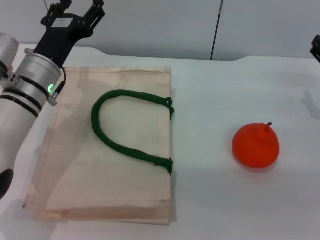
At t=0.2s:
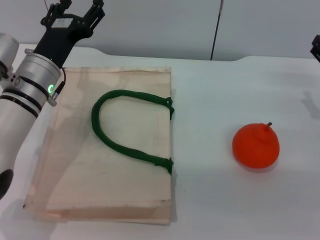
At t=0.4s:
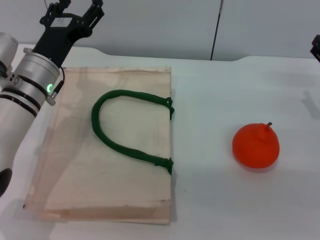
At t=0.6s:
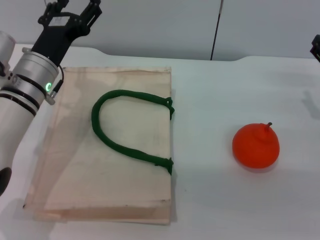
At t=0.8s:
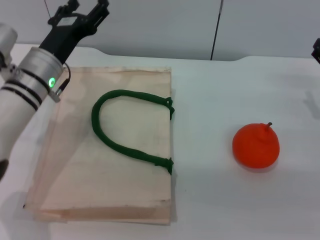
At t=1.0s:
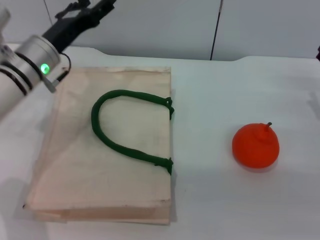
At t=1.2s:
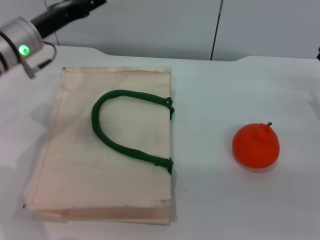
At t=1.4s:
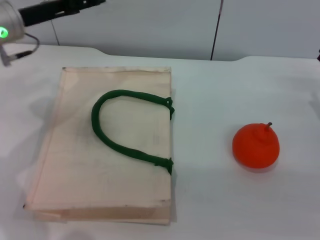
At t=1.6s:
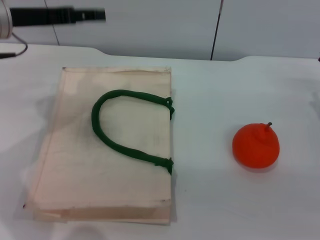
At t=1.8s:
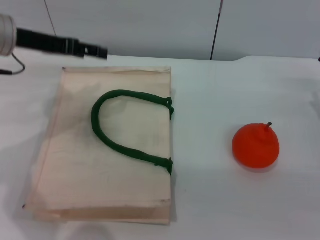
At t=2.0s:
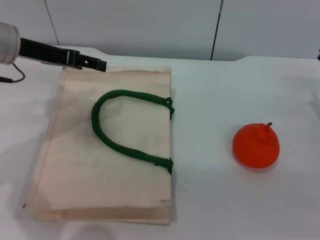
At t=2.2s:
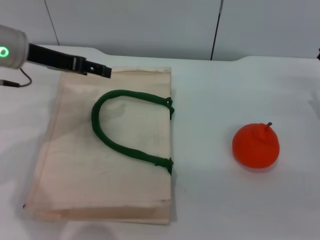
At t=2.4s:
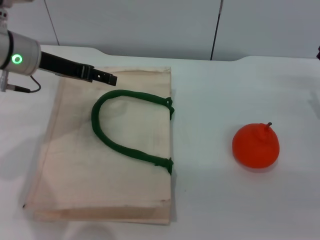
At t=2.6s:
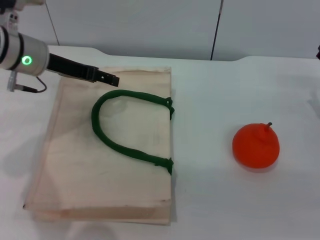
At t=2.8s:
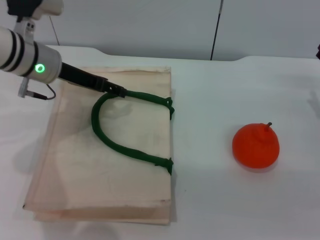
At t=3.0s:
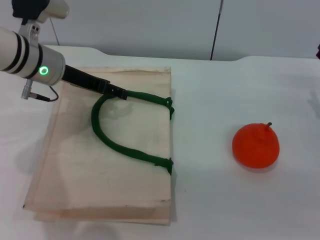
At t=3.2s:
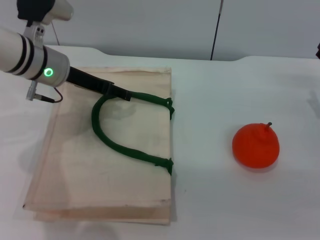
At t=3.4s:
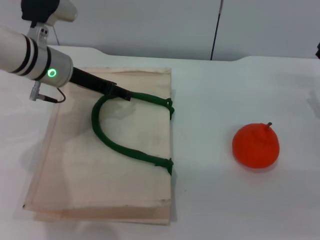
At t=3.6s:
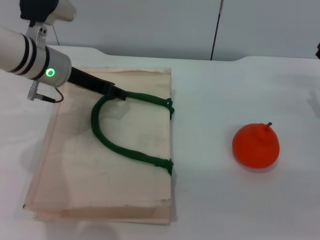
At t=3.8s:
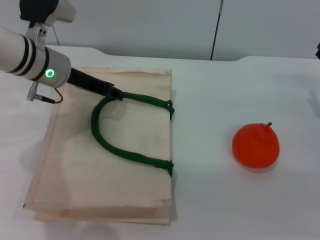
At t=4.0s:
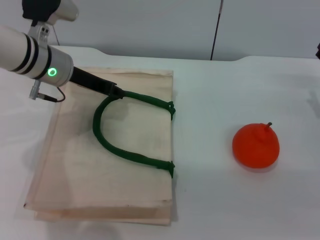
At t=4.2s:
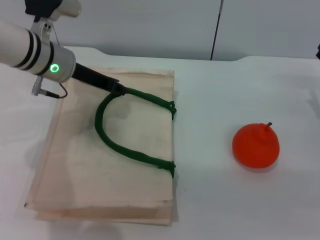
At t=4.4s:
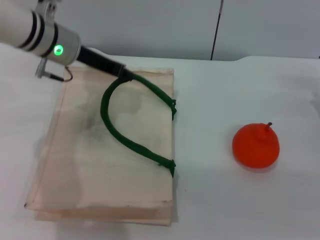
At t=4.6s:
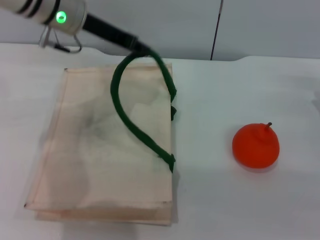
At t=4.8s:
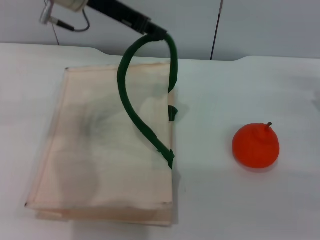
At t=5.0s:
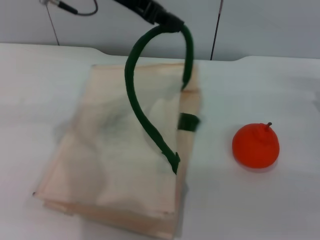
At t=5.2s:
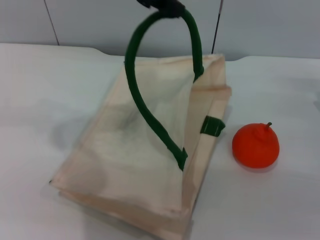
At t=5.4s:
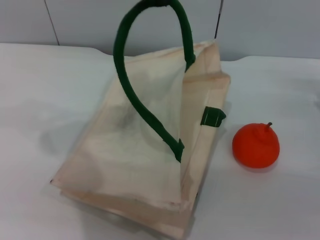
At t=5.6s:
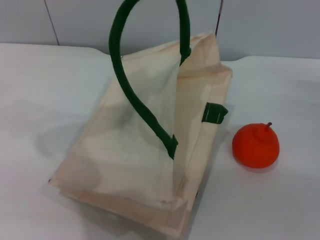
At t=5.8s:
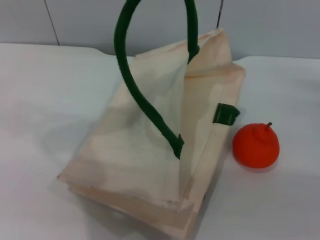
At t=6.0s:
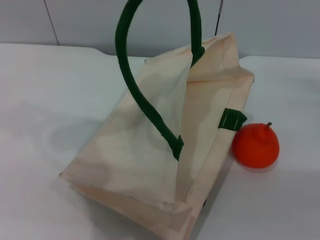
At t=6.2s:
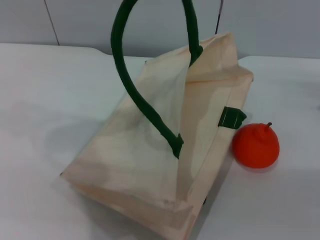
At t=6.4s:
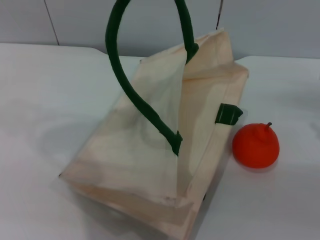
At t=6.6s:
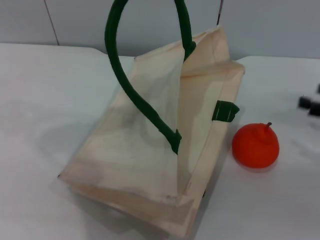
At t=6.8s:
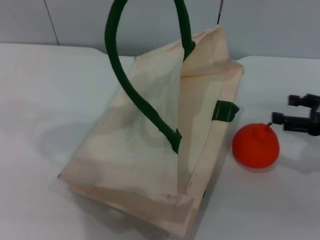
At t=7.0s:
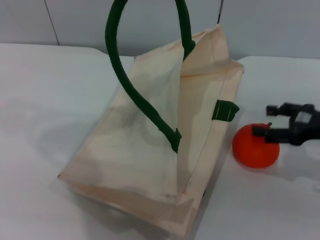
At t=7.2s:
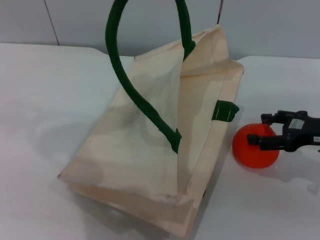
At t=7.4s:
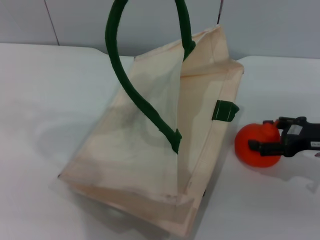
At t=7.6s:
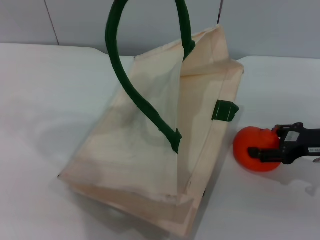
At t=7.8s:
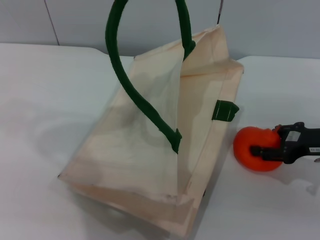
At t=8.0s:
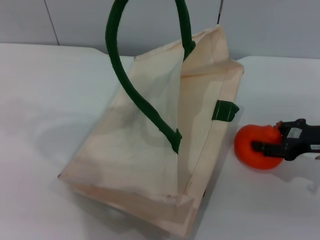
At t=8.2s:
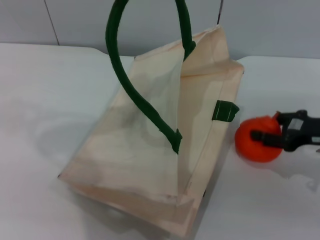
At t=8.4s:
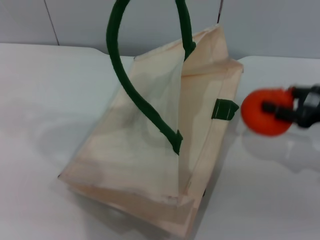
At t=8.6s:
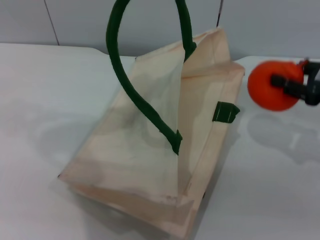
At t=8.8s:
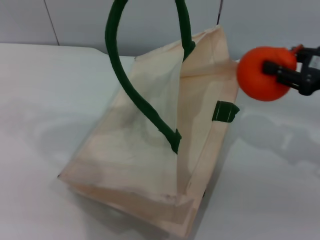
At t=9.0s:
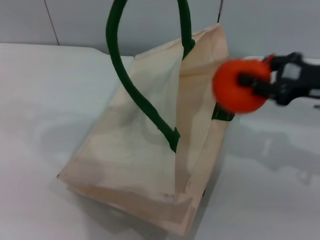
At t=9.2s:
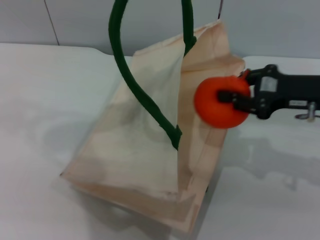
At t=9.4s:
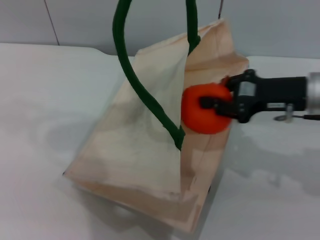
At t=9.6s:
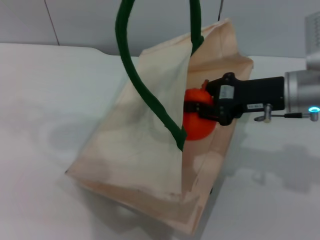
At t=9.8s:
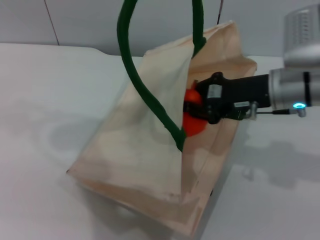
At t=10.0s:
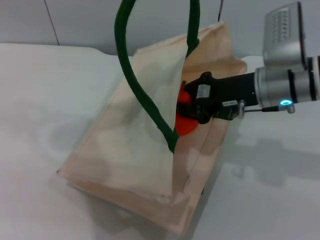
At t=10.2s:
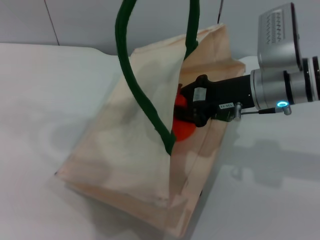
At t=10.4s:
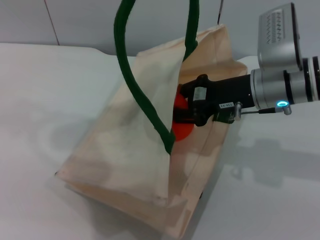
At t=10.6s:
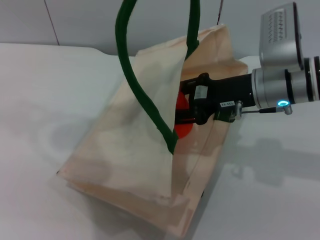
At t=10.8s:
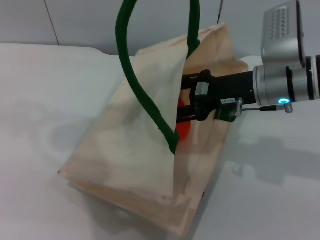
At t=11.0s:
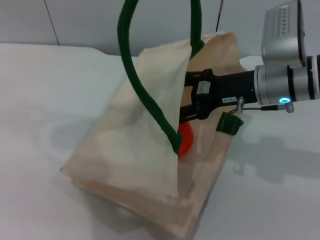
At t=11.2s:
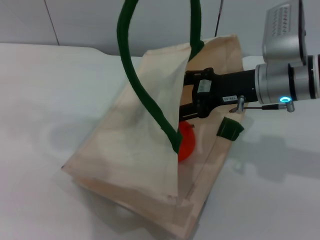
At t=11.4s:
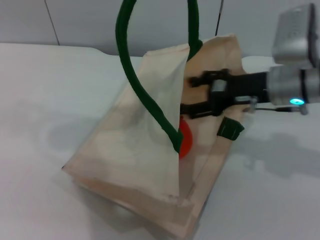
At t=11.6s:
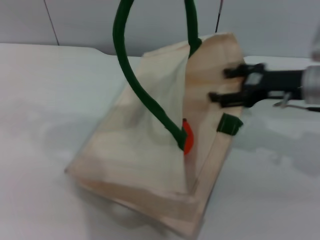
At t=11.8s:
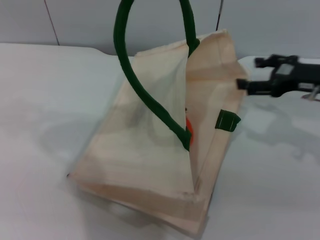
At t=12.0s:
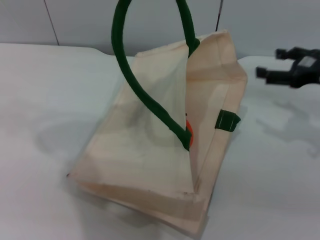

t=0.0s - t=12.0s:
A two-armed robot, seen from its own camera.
Task of the whole recording: pick up the orange from the table and place it in the white handbag.
Step, t=0.0s - t=5.4s: Lift the woven bag with the left gripper to open it.
Step, t=5.6s - t=8.2s: Pick up the orange with the right gripper.
Step, t=8.4s - t=11.4s: Place the orange into the woven bag with the right gripper.
t=0.0s - t=1.6s: The left gripper goes roughly 15 cm upward and to the left.
t=1.6s - t=3.0s: The left gripper moves downward and to the right, some 10 cm.
t=3.0s - t=4.4s: The left gripper closes its fingers.
t=4.4s - t=6.0s: The left gripper heads upward, covering roughly 20 cm.
t=6.0s - t=7.6s: The right gripper travels to the left by roughly 5 cm.
t=7.6s - t=9.0s: The right gripper shifts about 5 cm upward, and closes its fingers.
t=9.0s - t=10.4s: The right gripper shifts approximately 10 cm to the left.
t=10.4s - t=12.0s: The right gripper shifts approximately 15 cm to the right, and opens its fingers.

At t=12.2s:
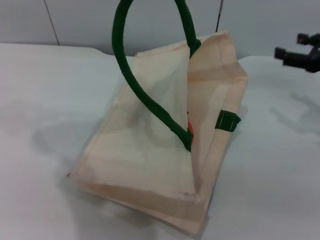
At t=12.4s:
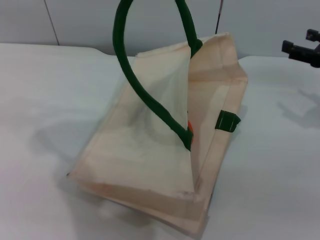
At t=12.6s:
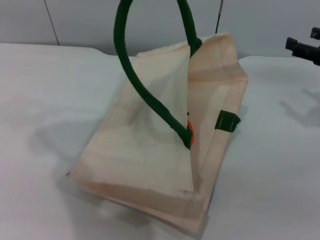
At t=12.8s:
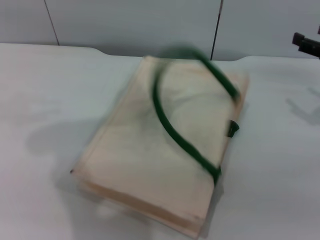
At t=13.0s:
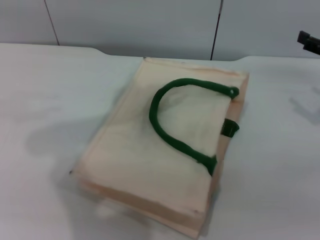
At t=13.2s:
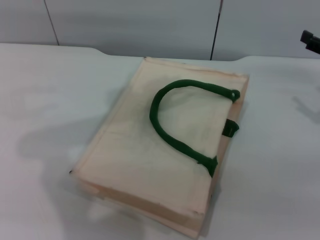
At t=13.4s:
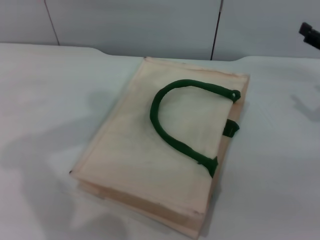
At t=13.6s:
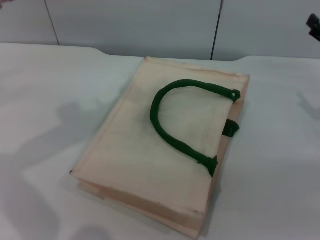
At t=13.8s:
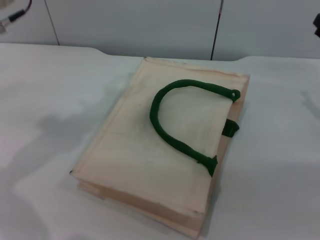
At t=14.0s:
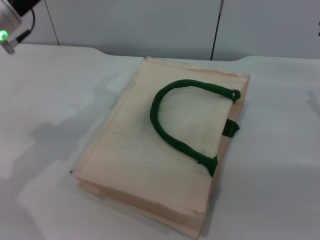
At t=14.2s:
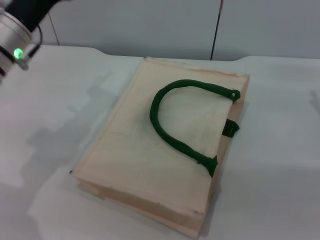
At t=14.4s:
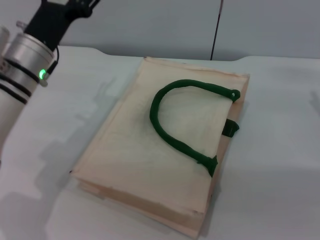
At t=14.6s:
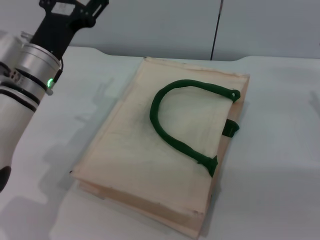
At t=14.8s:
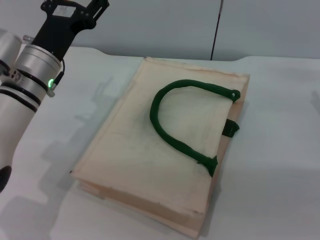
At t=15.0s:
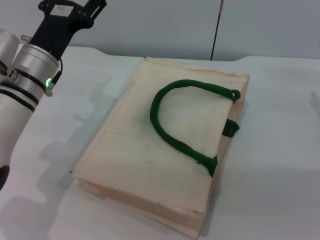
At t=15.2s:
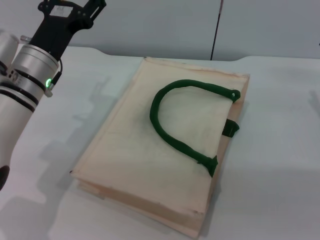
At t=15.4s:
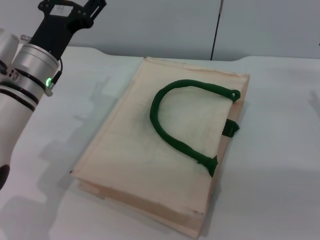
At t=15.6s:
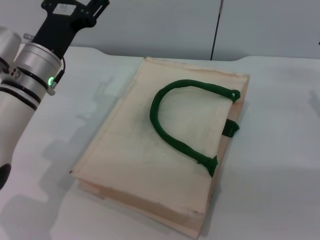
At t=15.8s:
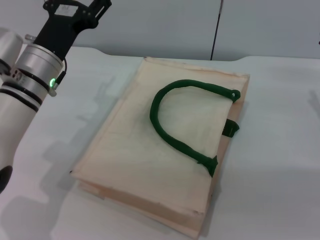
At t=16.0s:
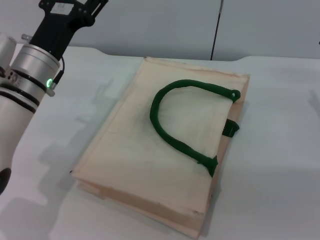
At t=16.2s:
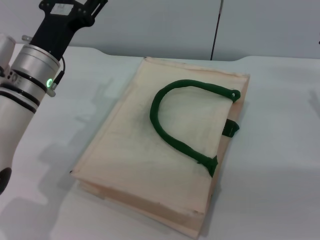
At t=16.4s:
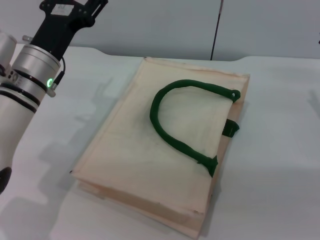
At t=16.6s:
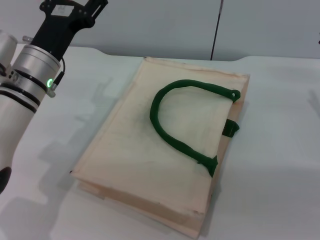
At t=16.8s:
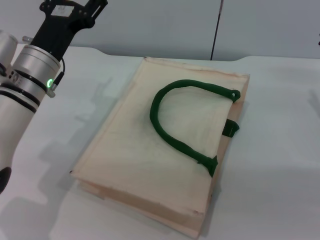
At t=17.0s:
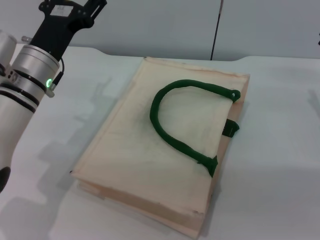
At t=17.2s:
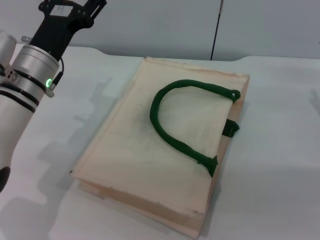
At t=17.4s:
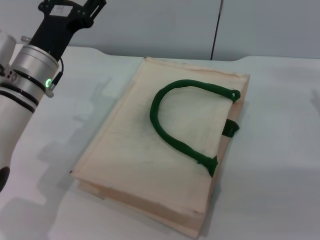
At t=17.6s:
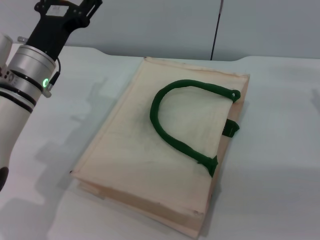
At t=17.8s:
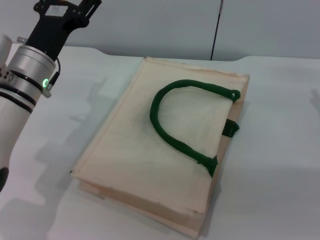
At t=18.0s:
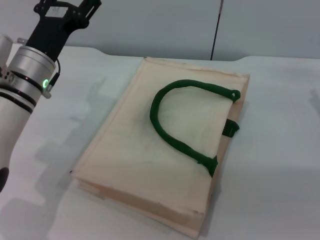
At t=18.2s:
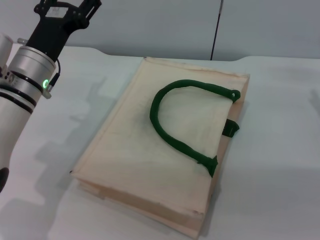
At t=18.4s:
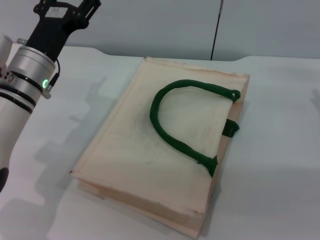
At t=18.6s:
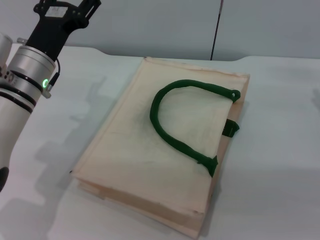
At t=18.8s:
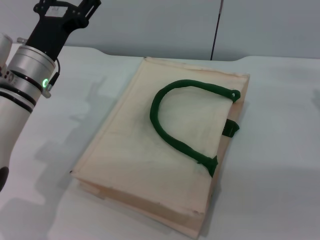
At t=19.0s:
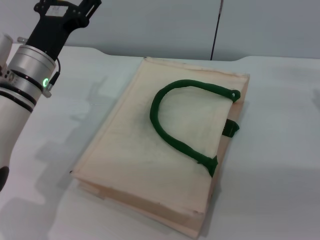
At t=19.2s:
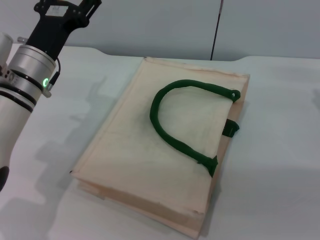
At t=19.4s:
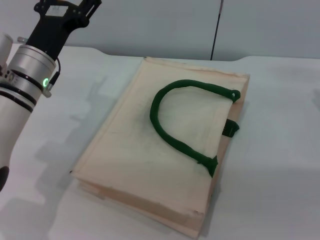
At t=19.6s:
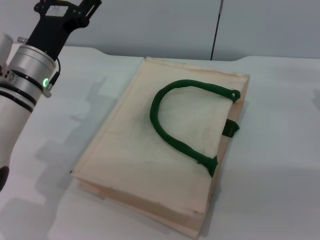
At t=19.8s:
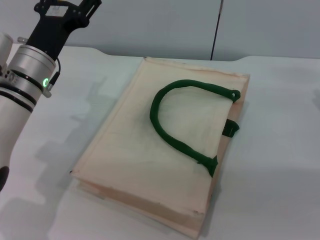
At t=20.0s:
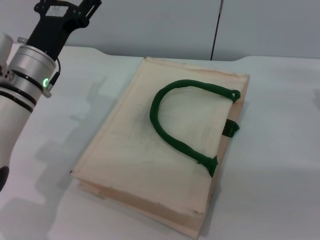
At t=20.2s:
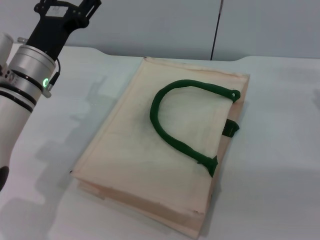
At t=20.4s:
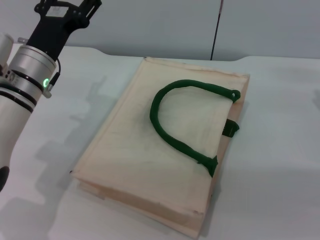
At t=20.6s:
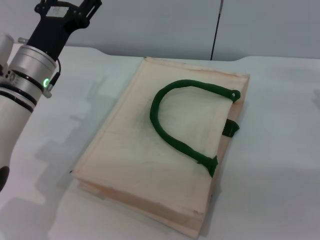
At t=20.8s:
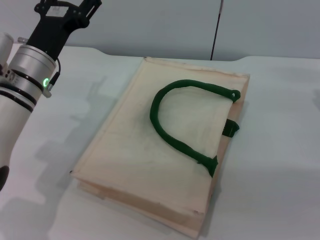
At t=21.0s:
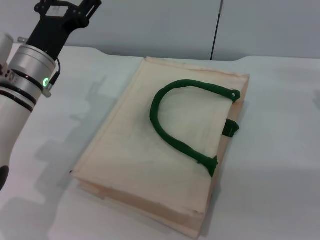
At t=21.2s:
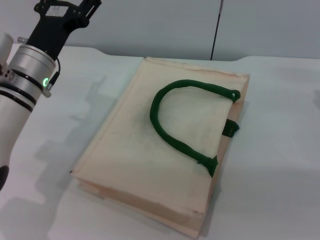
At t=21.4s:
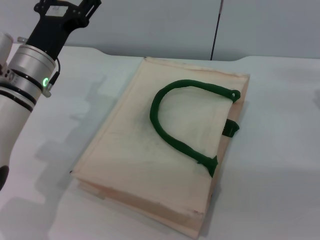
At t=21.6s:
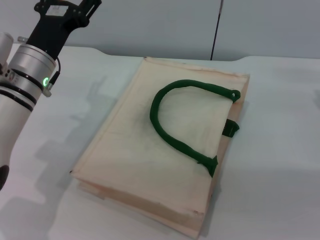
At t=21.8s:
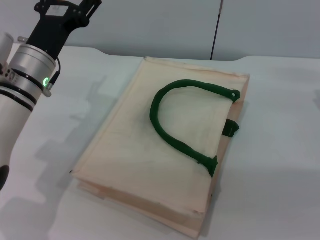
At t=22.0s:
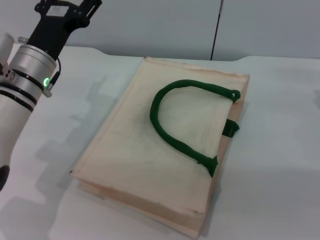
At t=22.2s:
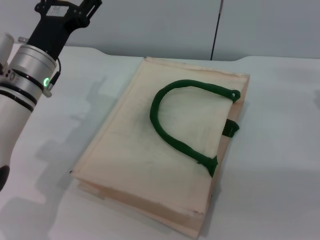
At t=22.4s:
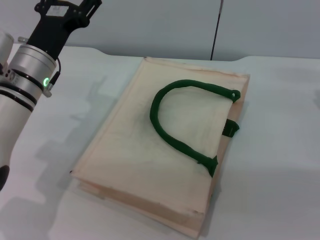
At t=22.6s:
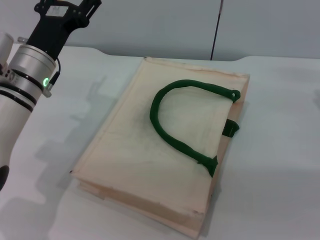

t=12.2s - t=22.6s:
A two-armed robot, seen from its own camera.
Task of the whole recording: pick up the orange from the table and place it in the white handbag.
Step, t=12.2s - t=13.0s: Lower the woven bag with the left gripper to close it.
t=12.2s - t=13.6s: The left gripper travels downward and to the left by about 10 cm, and opens up.
t=13.6s - t=15.2s: The left gripper shifts roughly 15 cm downward.
t=15.2s - t=22.6s: Both grippers stay about where they are.
